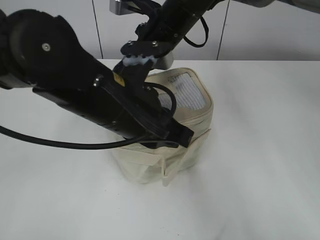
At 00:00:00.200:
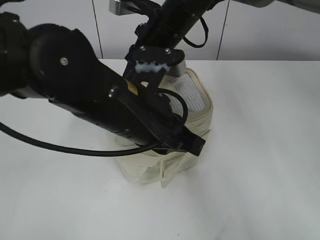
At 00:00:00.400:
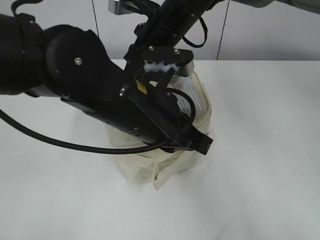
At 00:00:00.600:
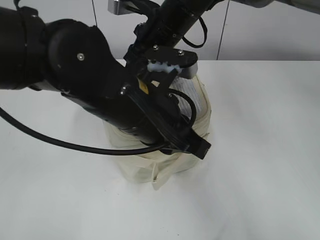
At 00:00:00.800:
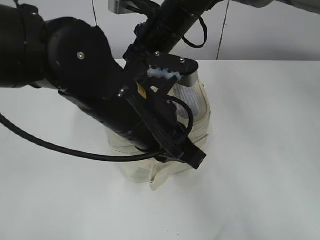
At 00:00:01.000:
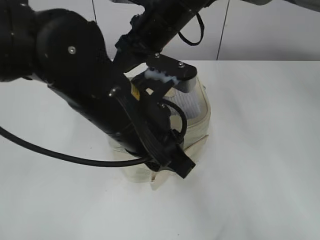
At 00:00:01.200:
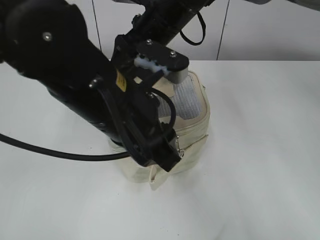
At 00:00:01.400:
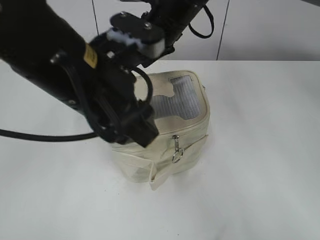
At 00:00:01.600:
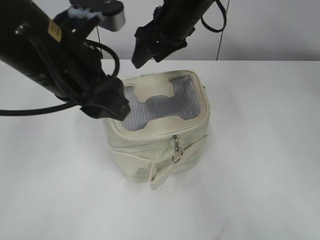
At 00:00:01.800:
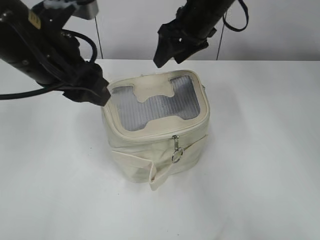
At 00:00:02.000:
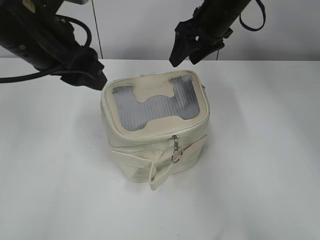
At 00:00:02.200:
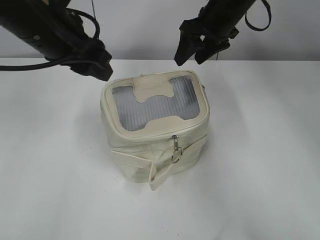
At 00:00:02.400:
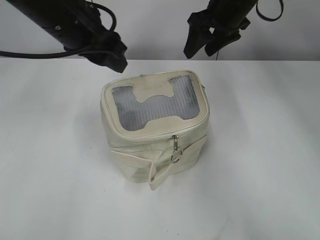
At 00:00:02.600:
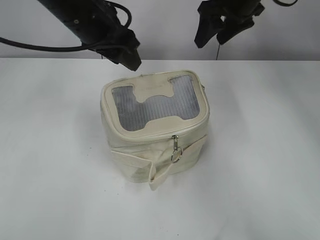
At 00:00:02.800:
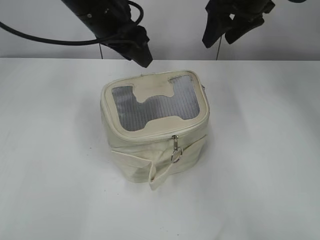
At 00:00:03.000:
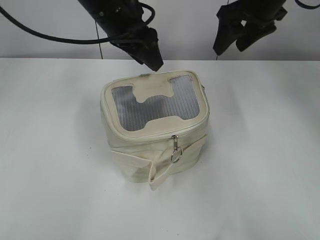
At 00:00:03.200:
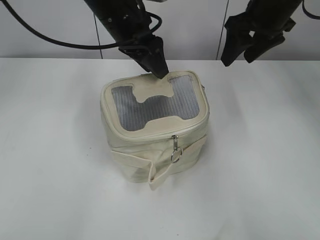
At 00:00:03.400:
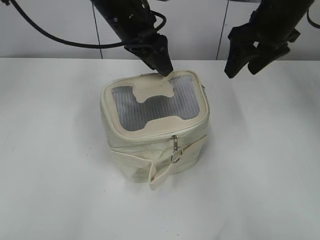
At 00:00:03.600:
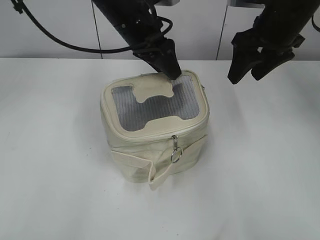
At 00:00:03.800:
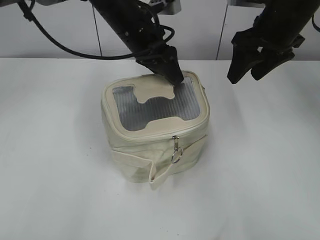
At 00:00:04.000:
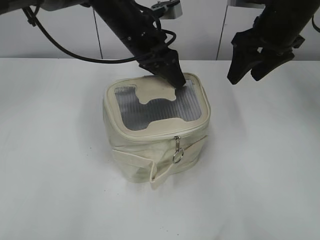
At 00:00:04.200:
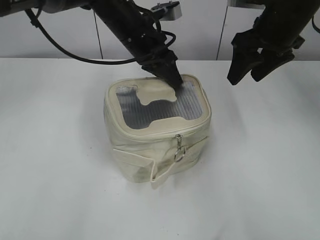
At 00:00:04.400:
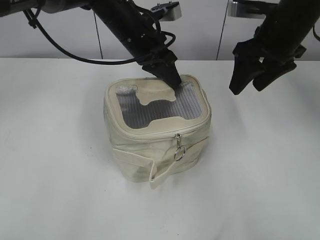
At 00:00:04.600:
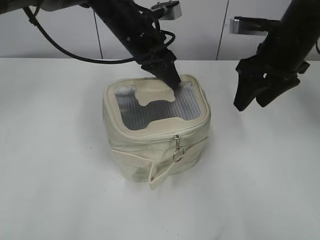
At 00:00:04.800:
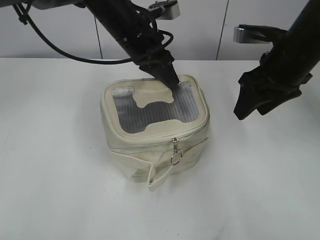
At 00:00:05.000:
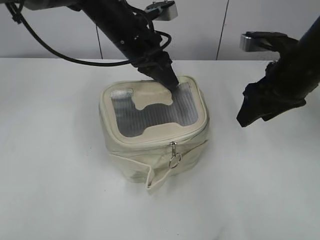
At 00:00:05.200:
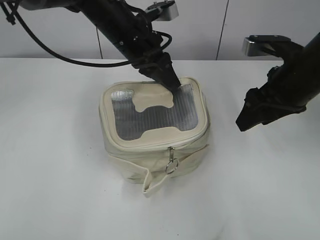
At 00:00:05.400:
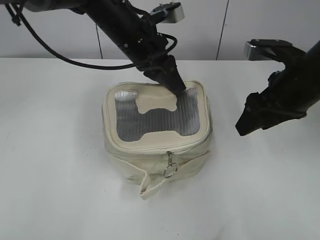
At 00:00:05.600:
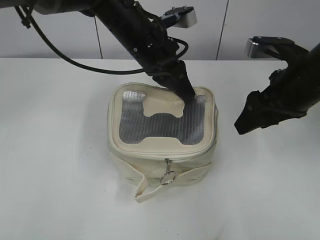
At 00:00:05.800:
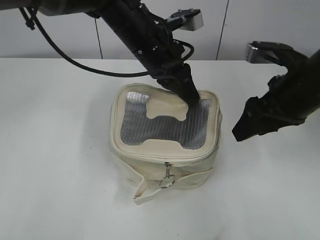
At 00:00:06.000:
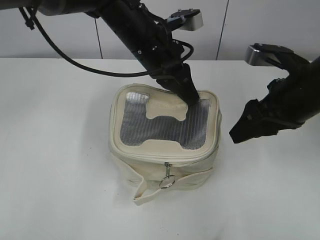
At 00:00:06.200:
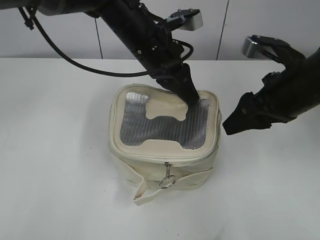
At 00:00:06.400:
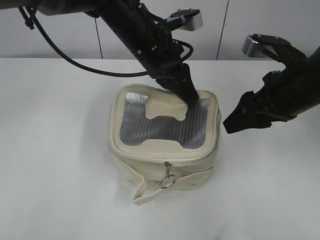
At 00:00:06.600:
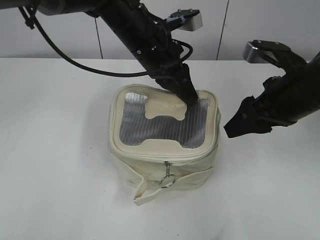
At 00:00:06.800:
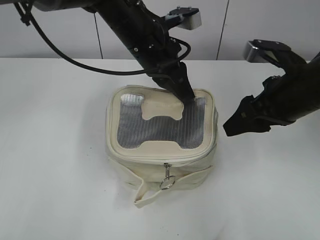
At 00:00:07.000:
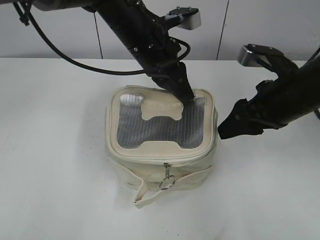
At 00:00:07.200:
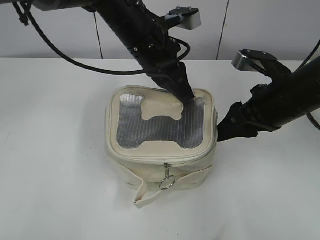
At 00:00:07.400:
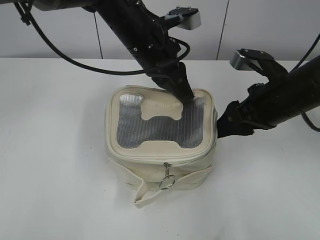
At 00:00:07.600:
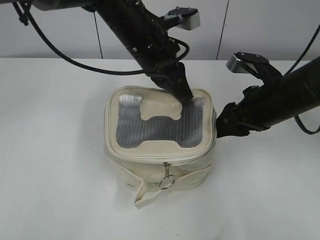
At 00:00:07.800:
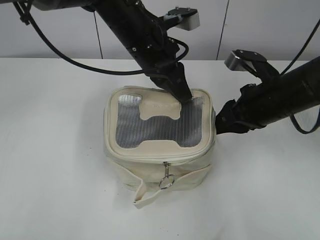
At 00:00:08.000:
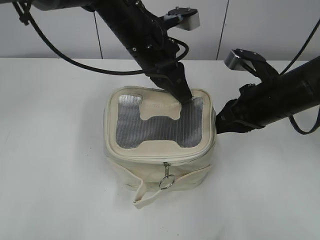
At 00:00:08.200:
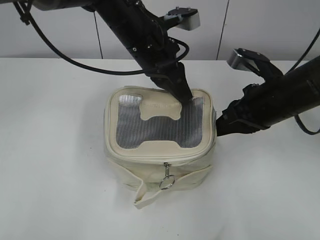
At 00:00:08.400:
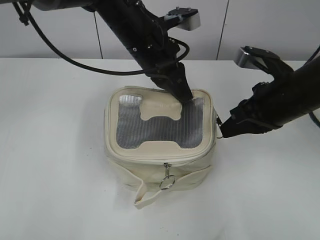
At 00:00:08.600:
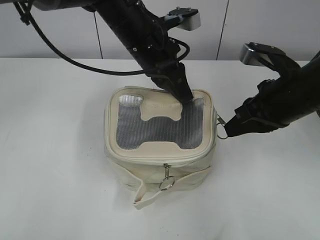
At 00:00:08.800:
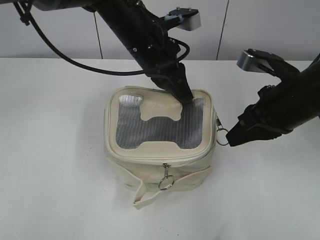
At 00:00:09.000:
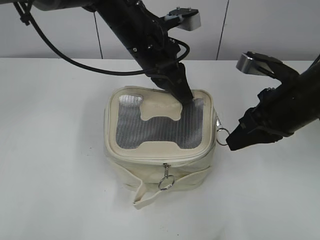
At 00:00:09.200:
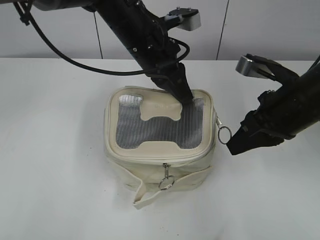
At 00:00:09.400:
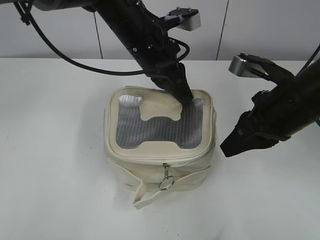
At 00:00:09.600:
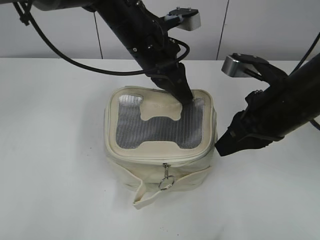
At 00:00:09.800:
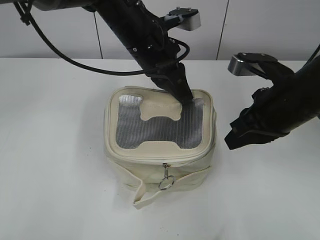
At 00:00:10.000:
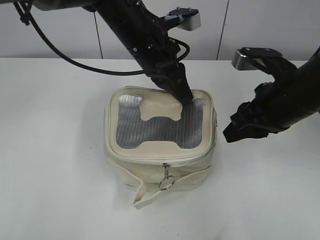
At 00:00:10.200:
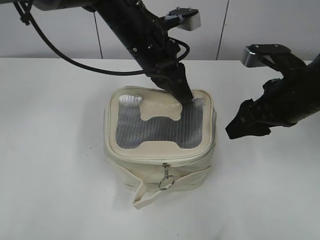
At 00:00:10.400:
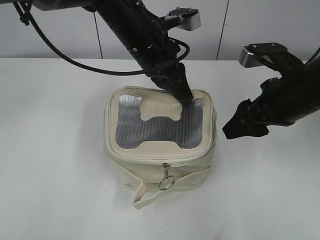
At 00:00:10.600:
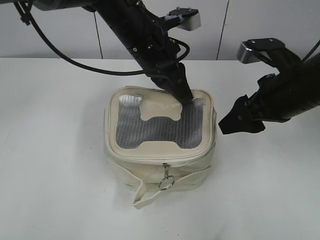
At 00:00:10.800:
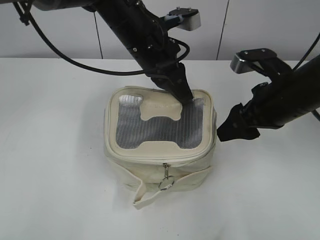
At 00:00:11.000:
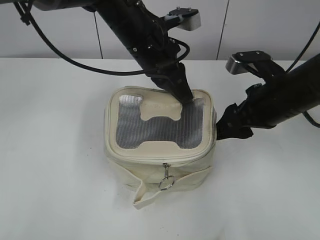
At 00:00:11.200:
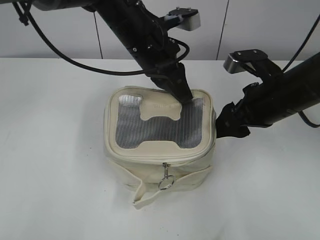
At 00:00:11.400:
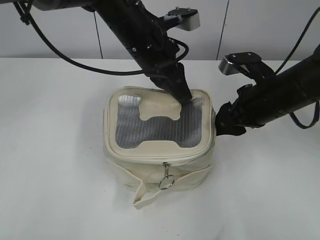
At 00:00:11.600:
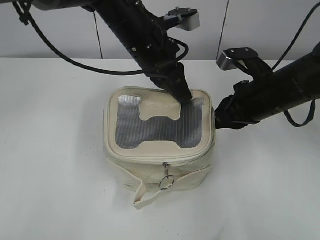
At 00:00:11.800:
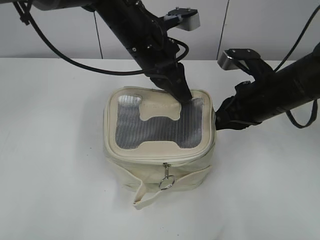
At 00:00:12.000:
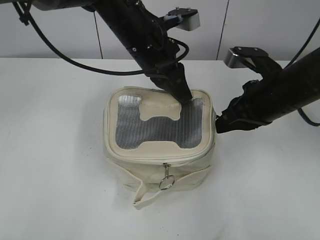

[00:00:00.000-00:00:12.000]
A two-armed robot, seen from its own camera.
00:00:00.000 to 00:00:01.600: The left gripper moves to the left and upward, some 10 cm, and opens its fingers. The right gripper opens up.
00:00:01.600 to 00:00:03.000: The right gripper goes some 15 cm to the right, while the left gripper is displaced forward by some 15 cm.
00:00:03.000 to 00:00:04.400: The left gripper travels downward by approximately 5 cm, and closes up, while the right gripper changes place by approximately 5 cm.
00:00:04.400 to 00:00:06.000: The right gripper heads backward, covering about 10 cm; the left gripper moves backward, roughly 5 cm.
00:00:06.000 to 00:00:07.600: There are only small adjustments of the grippers.
00:00:07.600 to 00:00:09.000: The right gripper closes its fingers.
00:00:09.000 to 00:00:10.400: The right gripper opens.
00:00:10.400 to 00:00:12.000: The right gripper closes.

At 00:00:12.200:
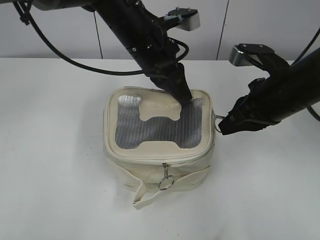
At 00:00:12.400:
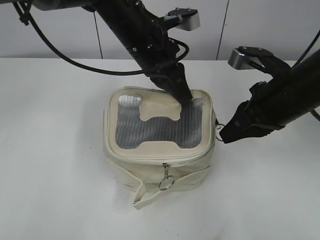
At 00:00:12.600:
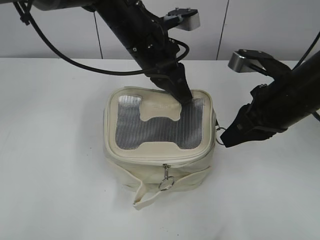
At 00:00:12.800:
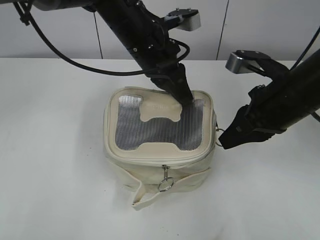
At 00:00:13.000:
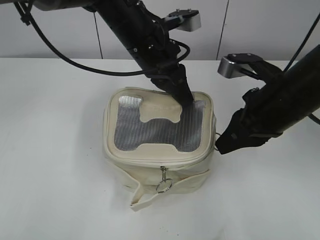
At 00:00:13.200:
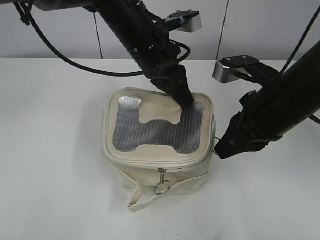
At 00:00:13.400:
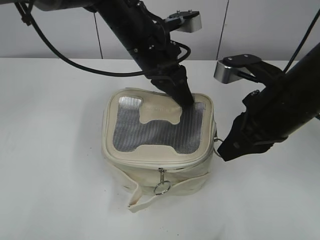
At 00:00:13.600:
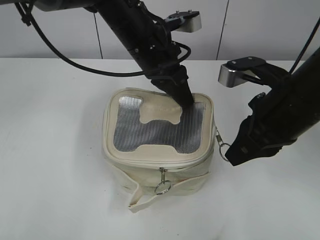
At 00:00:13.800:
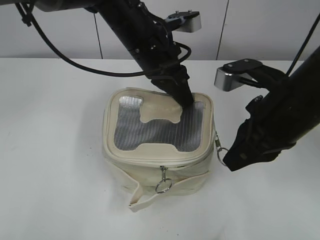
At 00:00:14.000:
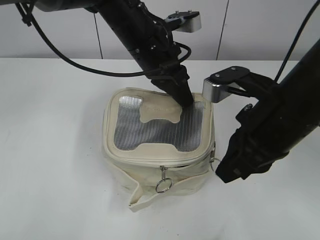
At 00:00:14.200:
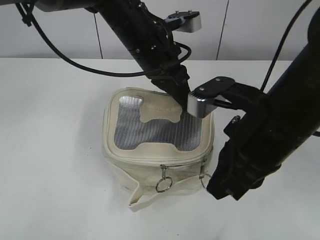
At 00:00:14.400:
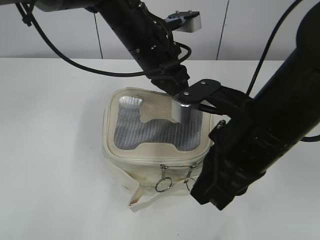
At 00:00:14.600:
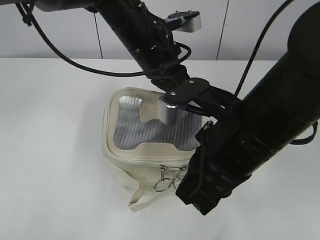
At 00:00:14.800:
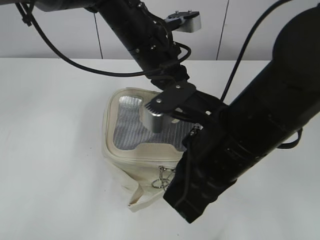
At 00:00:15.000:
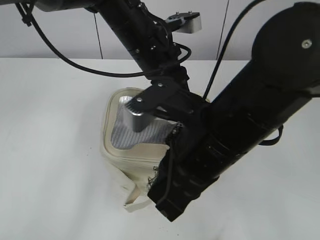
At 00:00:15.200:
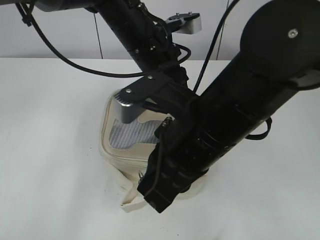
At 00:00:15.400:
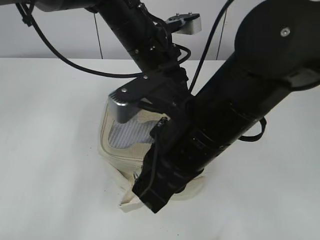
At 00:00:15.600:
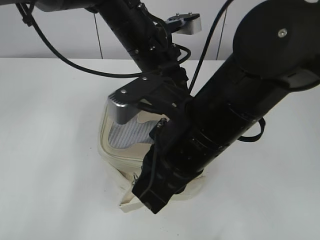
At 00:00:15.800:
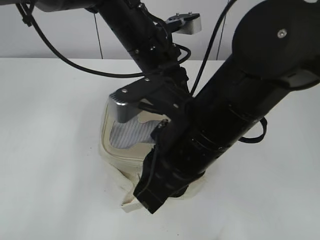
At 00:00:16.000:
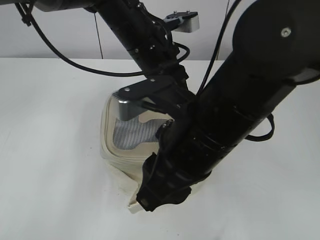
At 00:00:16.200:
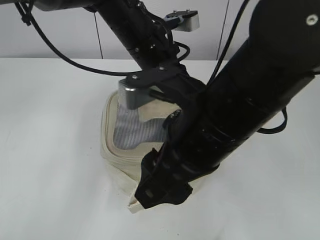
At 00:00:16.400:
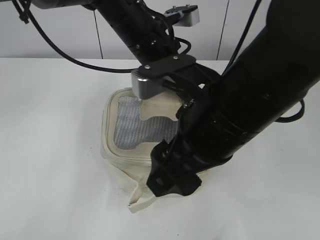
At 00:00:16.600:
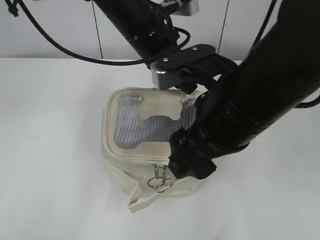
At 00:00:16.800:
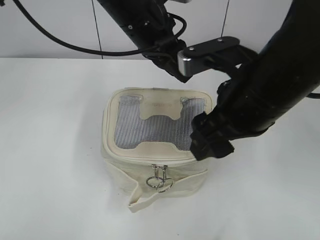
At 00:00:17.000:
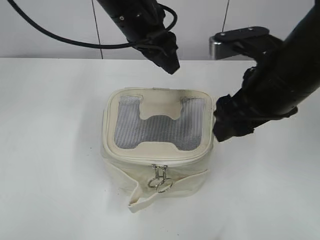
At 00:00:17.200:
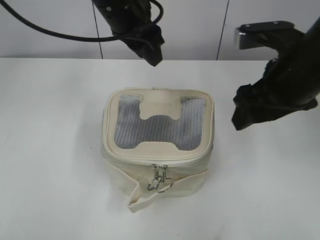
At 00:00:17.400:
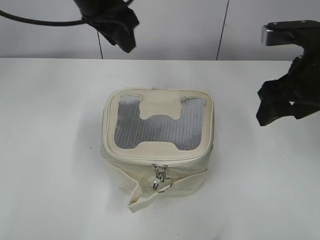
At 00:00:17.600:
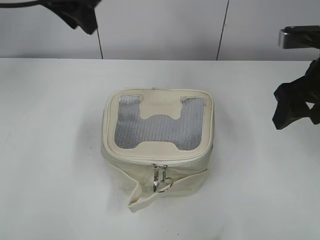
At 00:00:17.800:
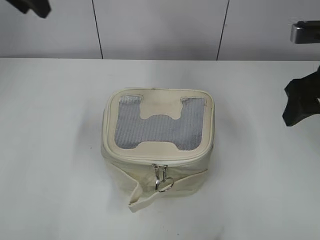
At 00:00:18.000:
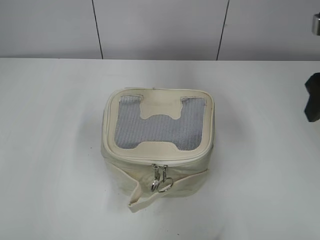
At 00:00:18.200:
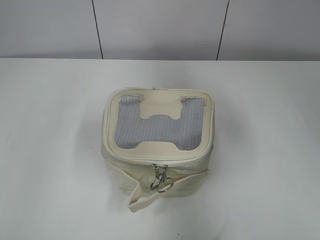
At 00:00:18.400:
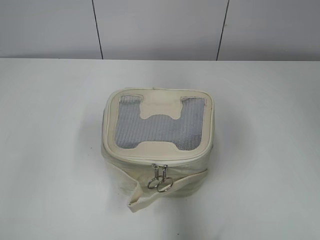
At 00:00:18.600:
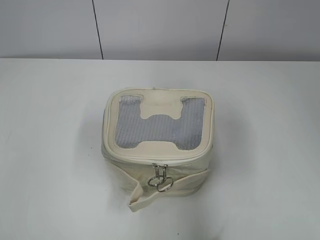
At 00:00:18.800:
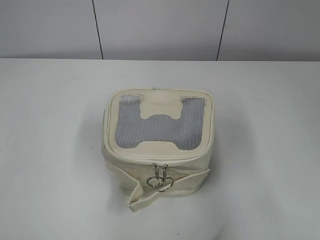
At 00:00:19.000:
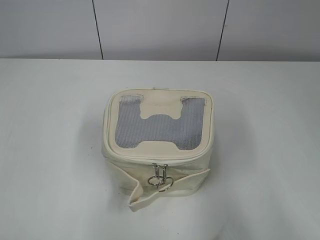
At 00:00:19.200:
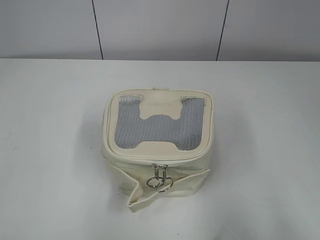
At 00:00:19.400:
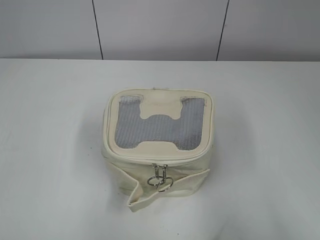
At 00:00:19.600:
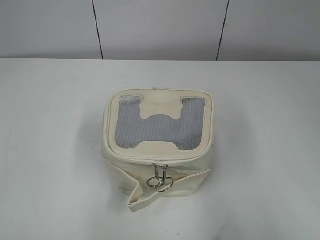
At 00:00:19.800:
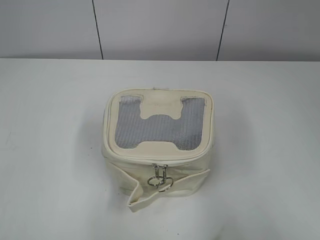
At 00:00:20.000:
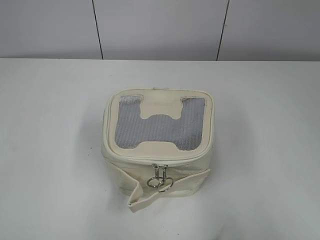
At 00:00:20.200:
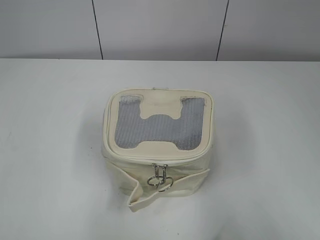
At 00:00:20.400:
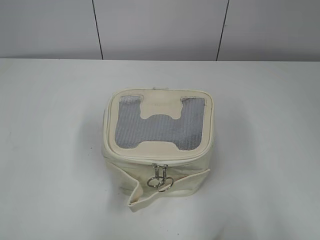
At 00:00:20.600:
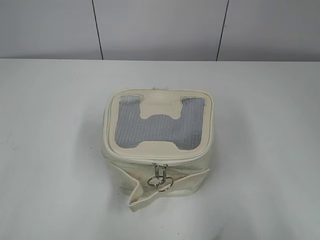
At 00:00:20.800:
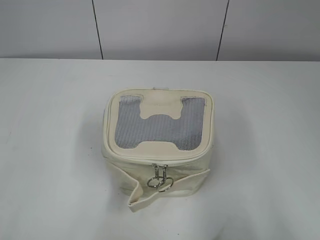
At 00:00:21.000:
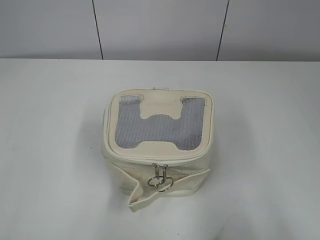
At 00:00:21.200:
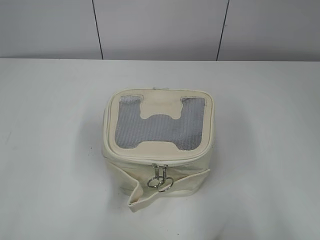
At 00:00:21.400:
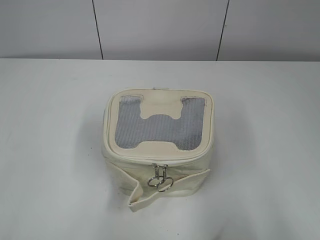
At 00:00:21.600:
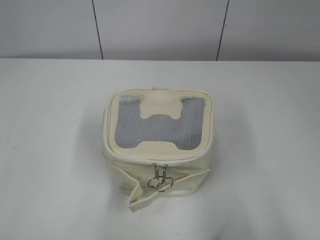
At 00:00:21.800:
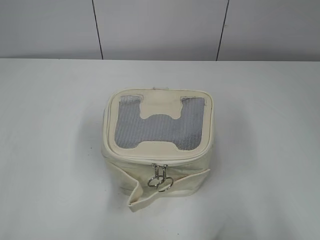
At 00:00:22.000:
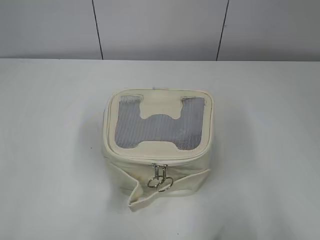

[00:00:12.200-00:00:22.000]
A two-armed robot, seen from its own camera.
Step, 00:00:12.200 to 00:00:16.000: Zip up the bag with your right hand.
Step, 00:00:16.200 to 00:00:16.800: Hold the bag with your left hand.
00:00:12.200 to 00:00:13.600: The right gripper shifts by about 5 cm.
00:00:13.600 to 00:00:15.000: The right gripper heads to the left and backward, covering roughly 10 cm.
00:00:15.000 to 00:00:16.400: The right gripper opens, while the left gripper opens its fingers.
00:00:16.400 to 00:00:17.800: The left gripper moves to the left and upward, roughly 25 cm, while the right gripper shifts some 20 cm to the right and forward.
00:00:17.800 to 00:00:19.200: Both grippers move backward, some 30 cm.
00:00:20.600 to 00:00:22.000: Neither gripper changes place.
